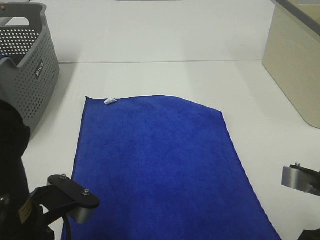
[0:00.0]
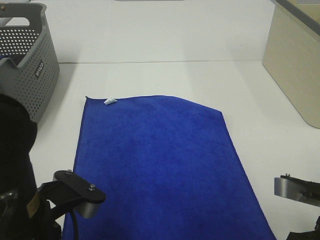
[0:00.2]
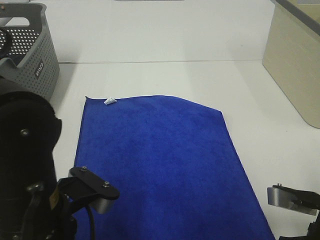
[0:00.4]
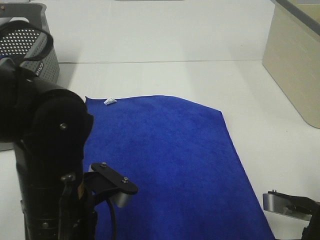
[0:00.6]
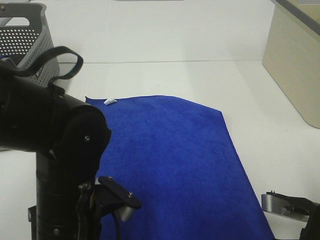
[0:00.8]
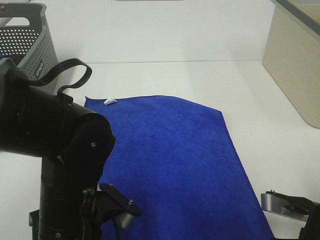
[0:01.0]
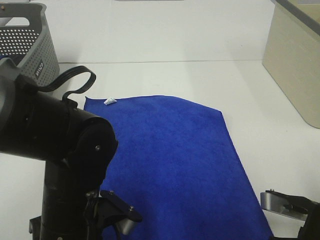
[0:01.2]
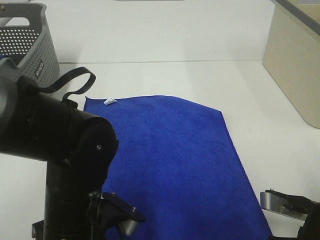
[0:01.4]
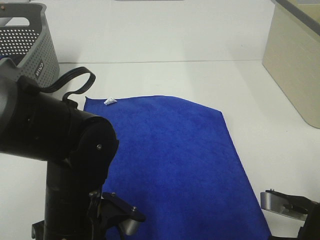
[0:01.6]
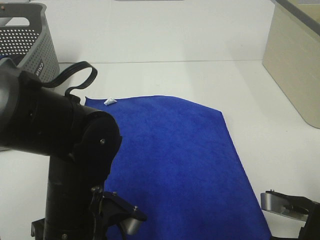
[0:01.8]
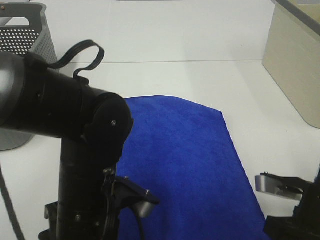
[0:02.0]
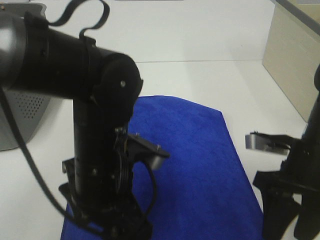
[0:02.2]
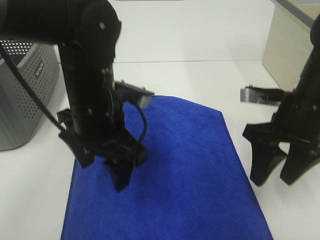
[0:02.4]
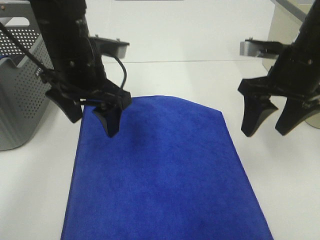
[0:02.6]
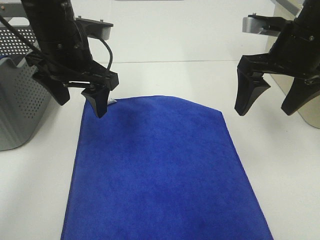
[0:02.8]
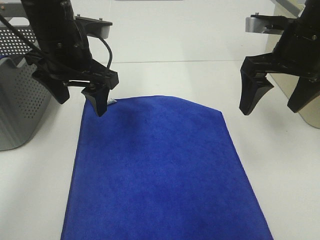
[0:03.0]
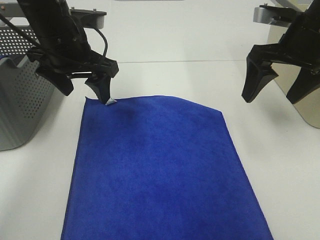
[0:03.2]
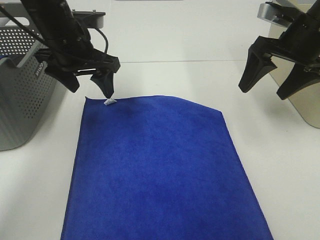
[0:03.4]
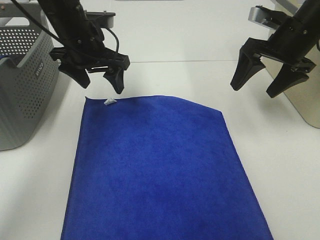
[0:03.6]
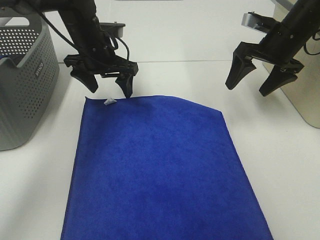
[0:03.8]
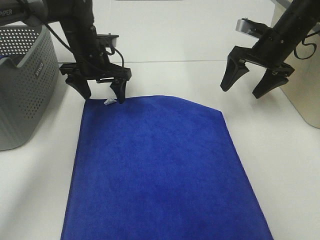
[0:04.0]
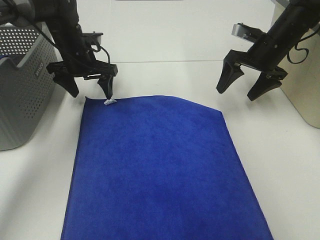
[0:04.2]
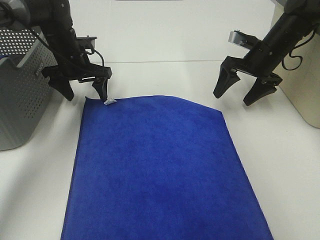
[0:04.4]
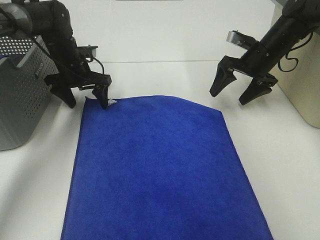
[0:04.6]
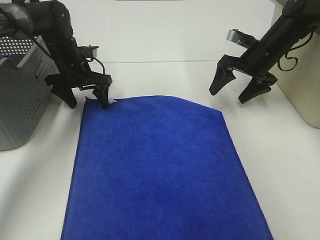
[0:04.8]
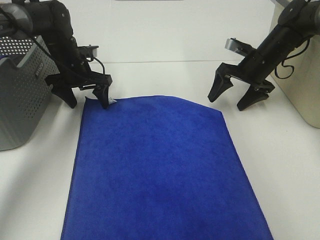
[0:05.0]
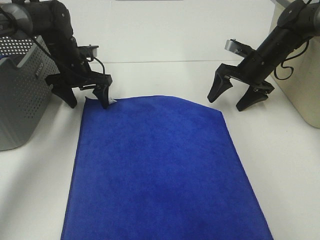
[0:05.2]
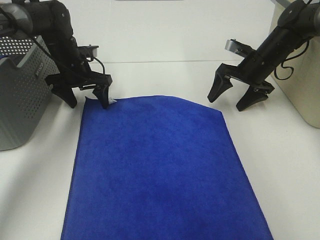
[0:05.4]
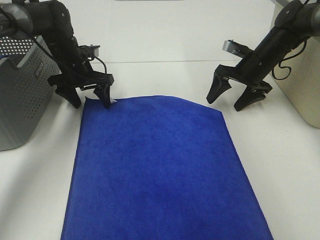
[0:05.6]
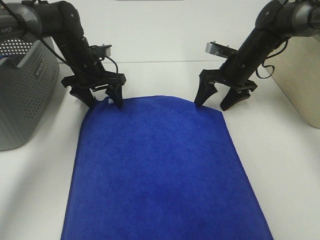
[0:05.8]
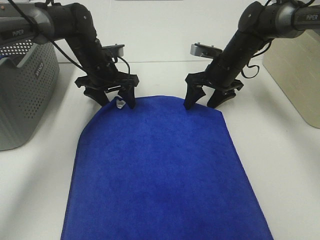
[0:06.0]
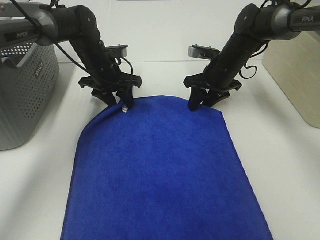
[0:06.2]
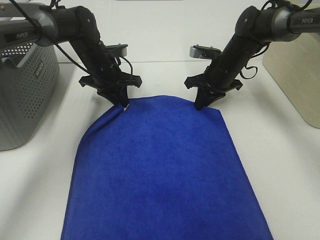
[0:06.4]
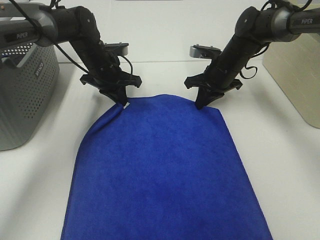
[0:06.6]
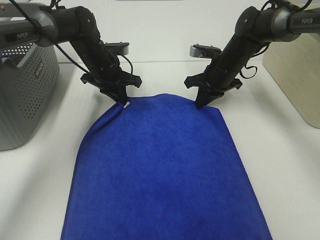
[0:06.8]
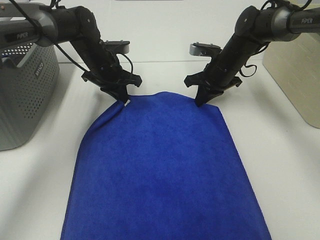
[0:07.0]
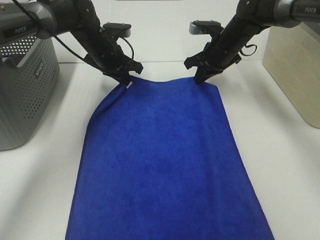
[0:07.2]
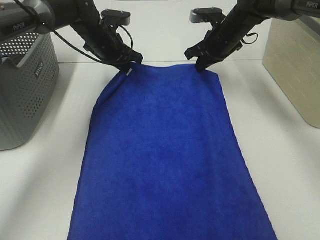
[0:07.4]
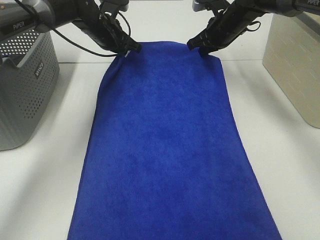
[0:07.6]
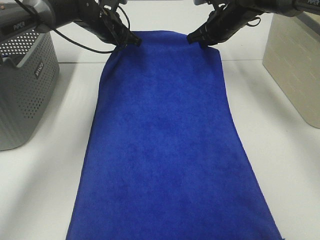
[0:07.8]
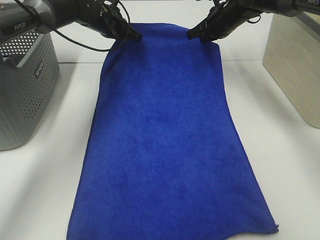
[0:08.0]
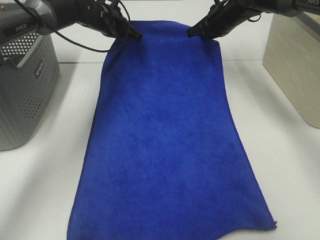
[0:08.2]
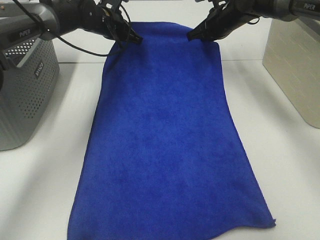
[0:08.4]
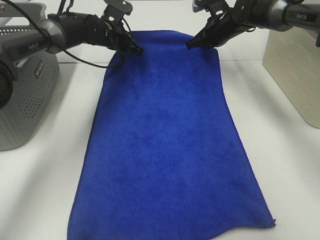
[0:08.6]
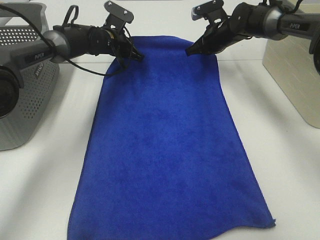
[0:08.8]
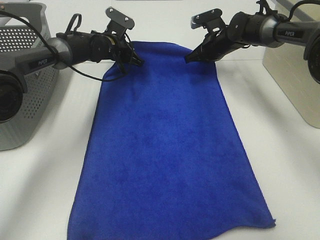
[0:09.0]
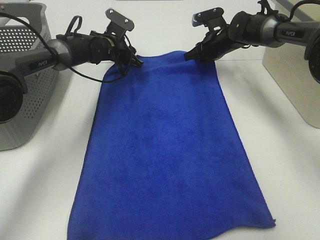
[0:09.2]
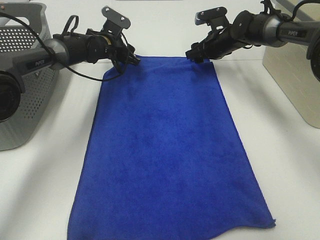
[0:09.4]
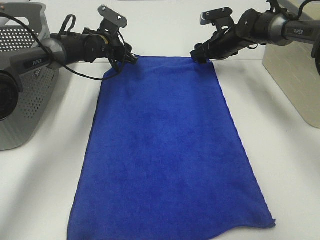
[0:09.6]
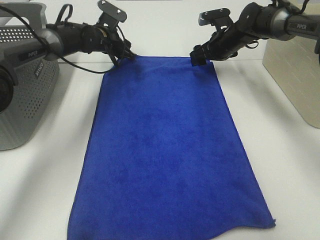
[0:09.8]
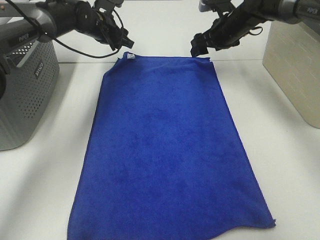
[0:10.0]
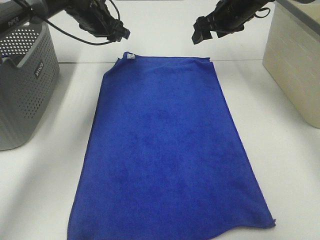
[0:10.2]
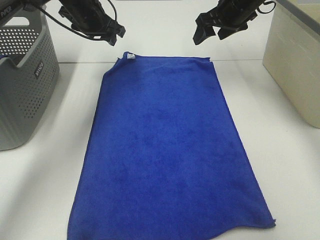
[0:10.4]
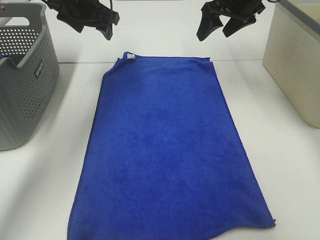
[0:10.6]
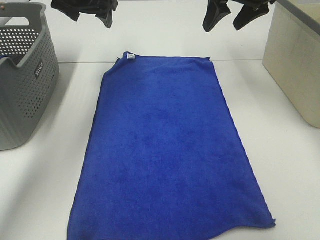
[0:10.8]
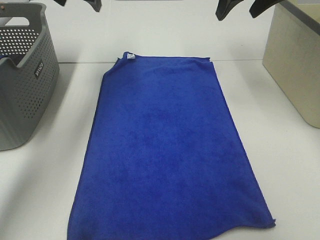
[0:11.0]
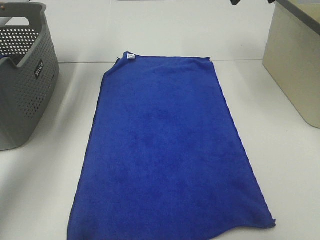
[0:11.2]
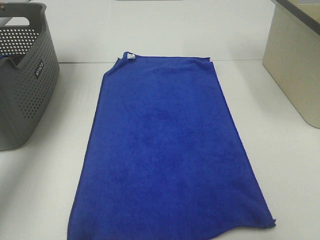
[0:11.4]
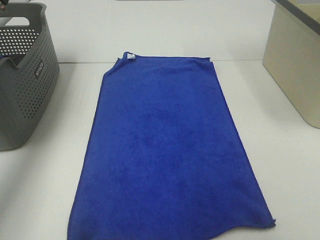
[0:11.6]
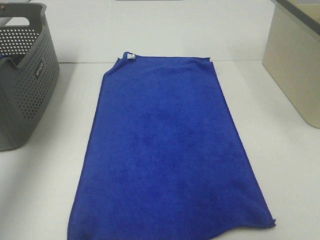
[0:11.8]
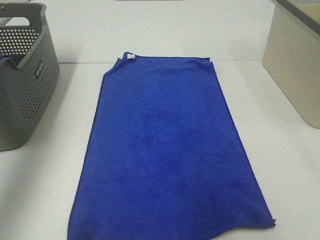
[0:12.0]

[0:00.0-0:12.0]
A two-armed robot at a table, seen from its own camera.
Task of the whole recording: Remove the towel and place it.
Step, 0:00.0 to 0:03.8: Left hand:adjust the blue towel.
Step, 0:00.0 to 0:03.8: Right hand:adjust the blue towel.
0:00.0 to 0:01.6: Both grippers move downward, approximately 5 cm. The right gripper opens its fingers. Meanwhile the left gripper opens its fingers.
0:01.6 to 0:03.0: The grippers both shift forward and upward by approximately 25 cm. The right gripper opens.
0:03.0 to 0:04.4: The left gripper goes some 20 cm forward, downward and to the left; the right gripper travels forward and downward by some 20 cm.
0:04.4 to 0:06.0: The right gripper goes about 10 cm to the left. Meanwhile the left gripper goes roughly 5 cm to the right.
0:06.0 to 0:07.6: The right gripper heads upward and forward, covering some 10 cm, and closes its fingers. The left gripper goes some 10 cm forward and upward, and closes its fingers.
0:07.6 to 0:09.0: The two grippers go roughly 5 cm downward.
0:09.0 to 0:10.4: The two grippers go some 10 cm upward. The right gripper opens up. The left gripper opens its fingers.
0:10.4 to 0:12.0: The left gripper is displaced backward, upward and to the left by some 35 cm. Meanwhile the right gripper goes roughly 35 cm backward and upward.

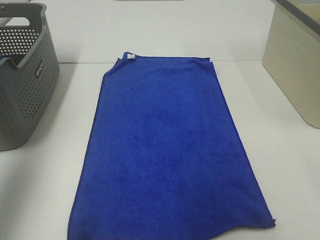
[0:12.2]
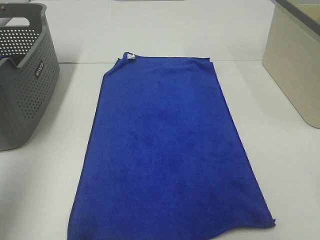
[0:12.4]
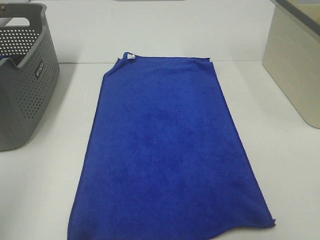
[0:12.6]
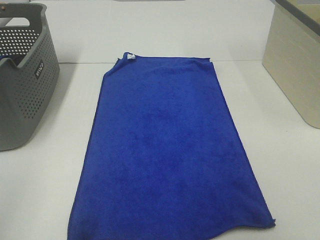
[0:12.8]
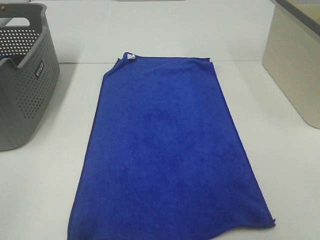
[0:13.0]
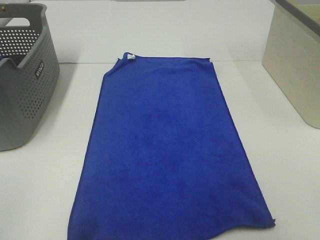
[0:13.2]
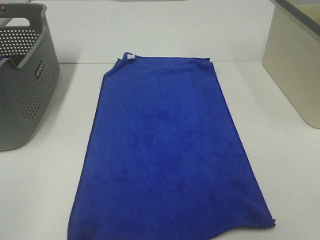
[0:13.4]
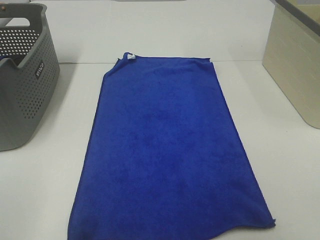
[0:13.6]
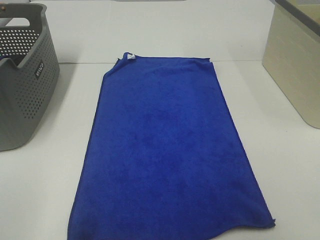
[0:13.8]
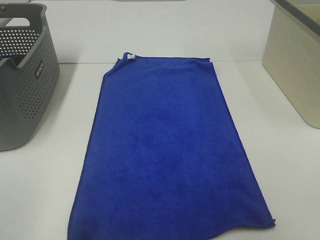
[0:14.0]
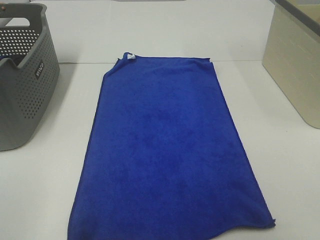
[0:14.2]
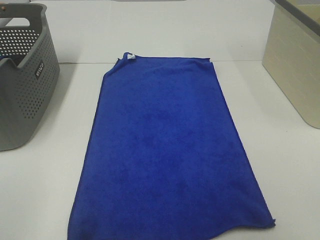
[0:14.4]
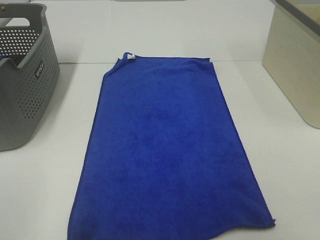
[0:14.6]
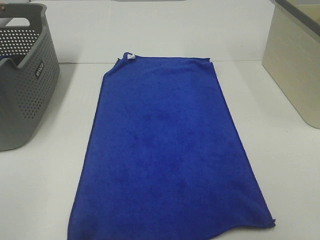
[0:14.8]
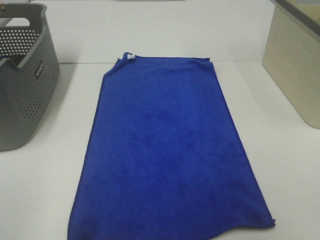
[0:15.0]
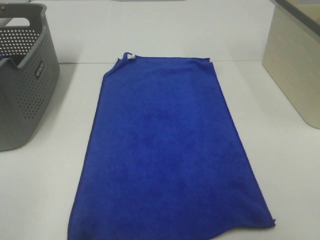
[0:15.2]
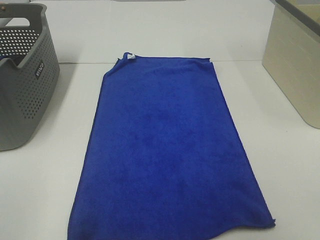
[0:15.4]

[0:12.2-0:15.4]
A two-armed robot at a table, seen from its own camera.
Task of the whole recording: Remove the towel and place it.
0:12.2 to 0:13.8: The left gripper travels backward and downward by about 25 cm.
